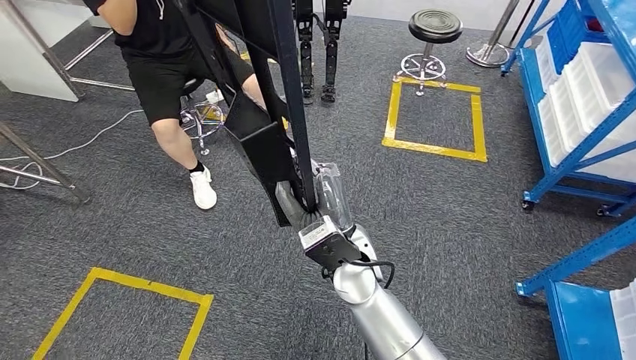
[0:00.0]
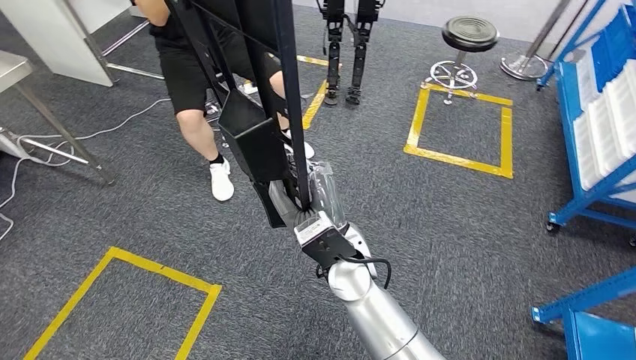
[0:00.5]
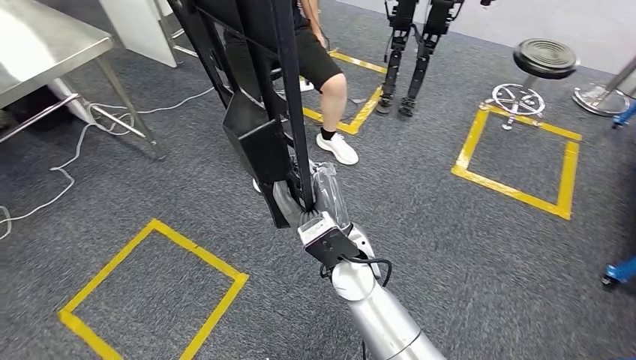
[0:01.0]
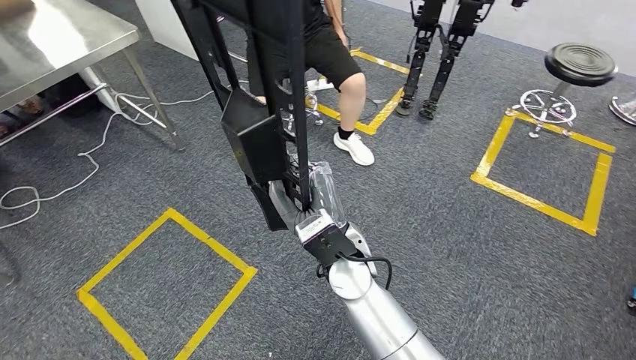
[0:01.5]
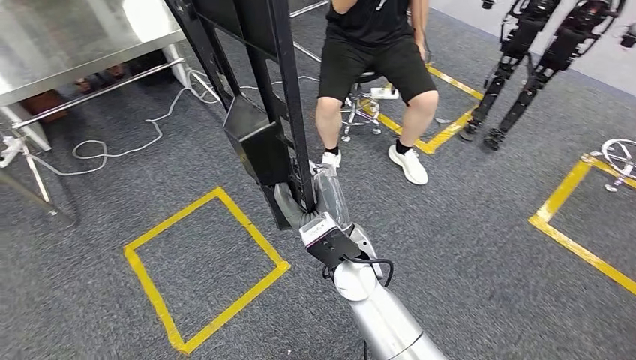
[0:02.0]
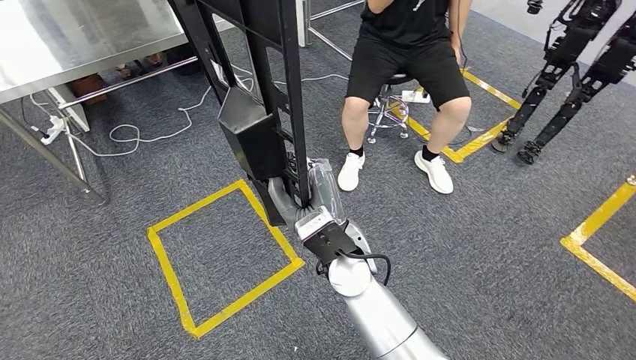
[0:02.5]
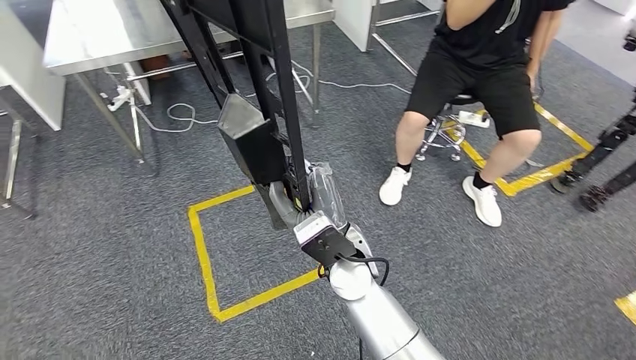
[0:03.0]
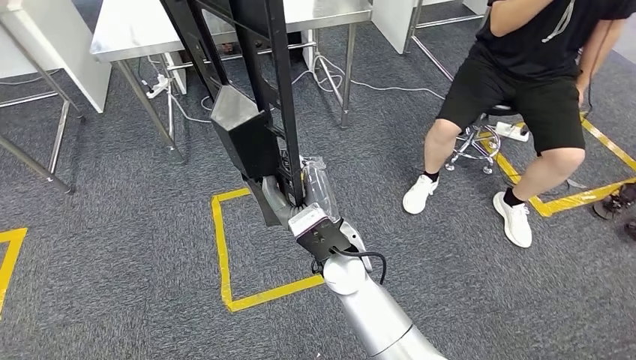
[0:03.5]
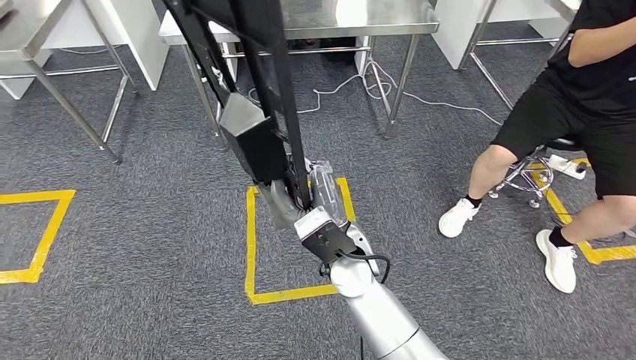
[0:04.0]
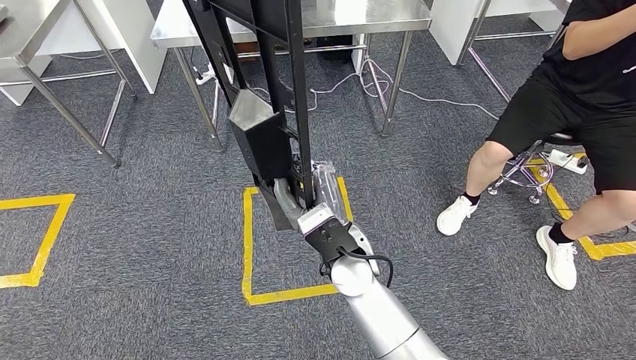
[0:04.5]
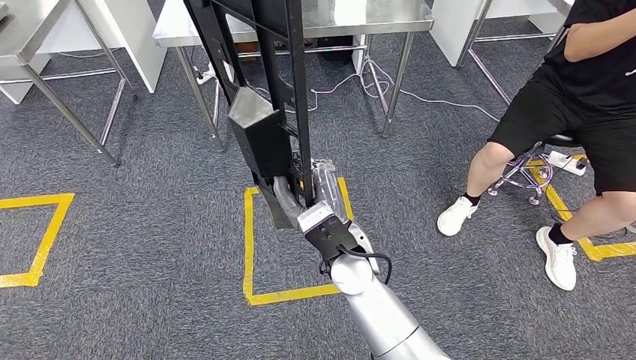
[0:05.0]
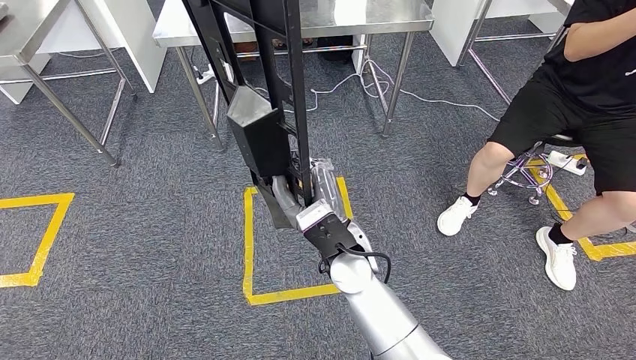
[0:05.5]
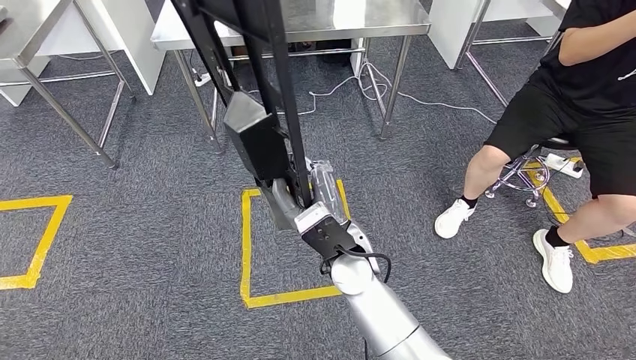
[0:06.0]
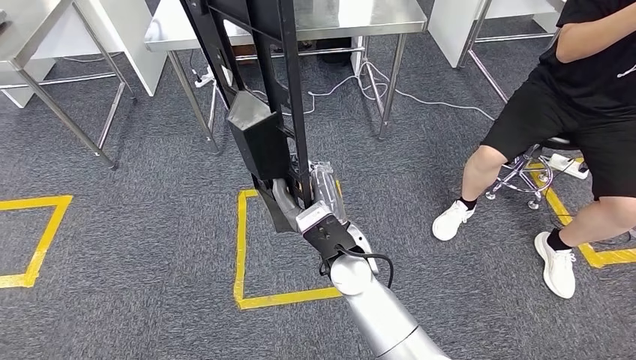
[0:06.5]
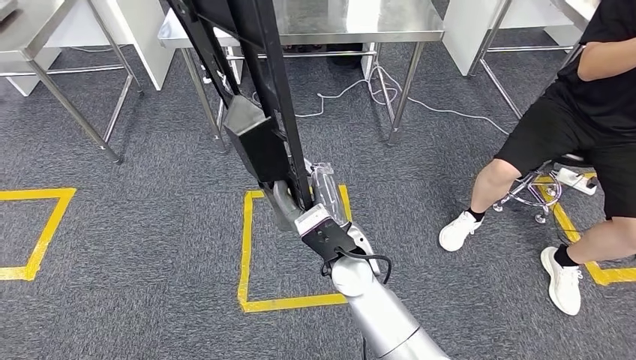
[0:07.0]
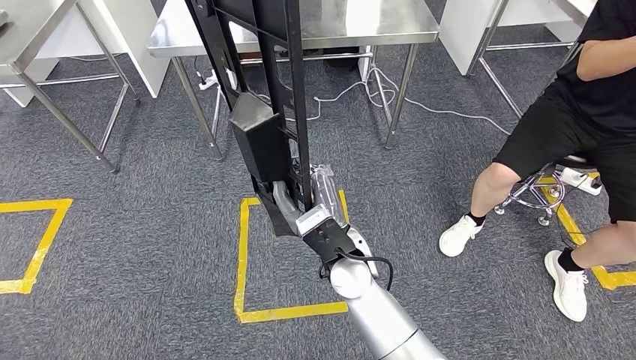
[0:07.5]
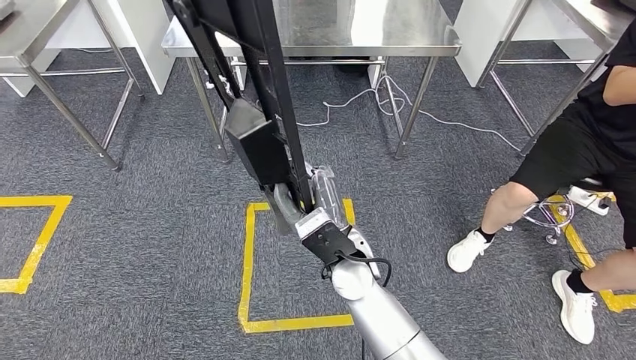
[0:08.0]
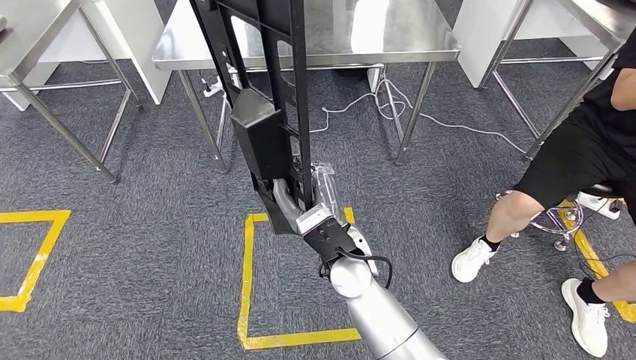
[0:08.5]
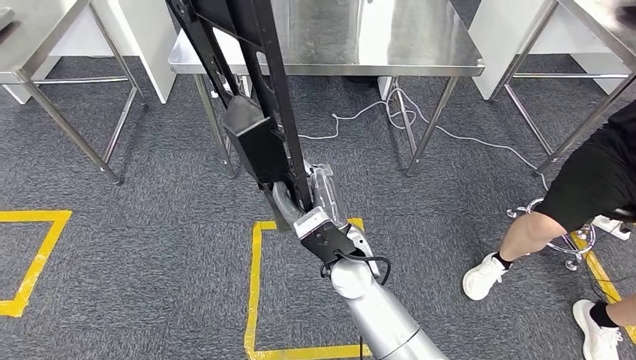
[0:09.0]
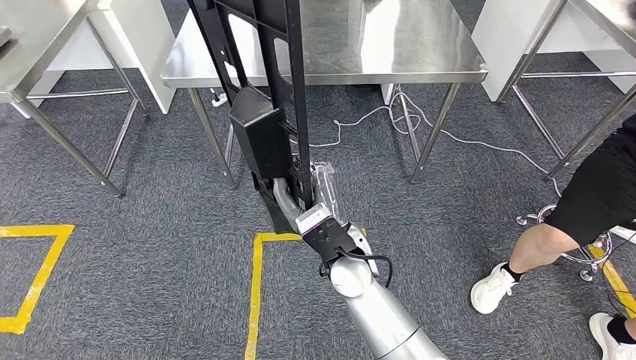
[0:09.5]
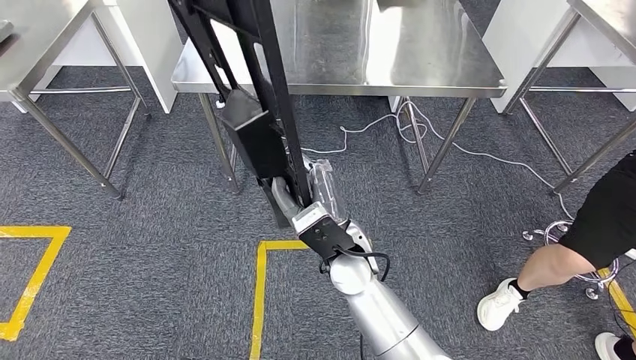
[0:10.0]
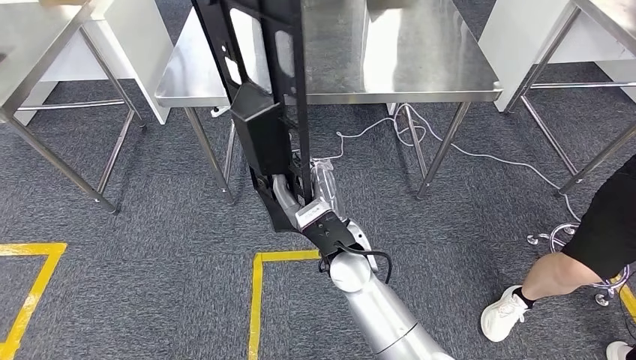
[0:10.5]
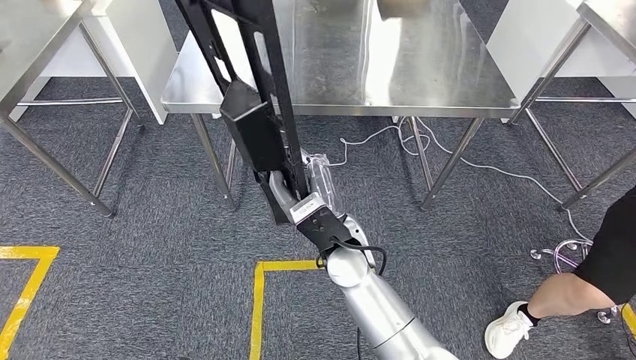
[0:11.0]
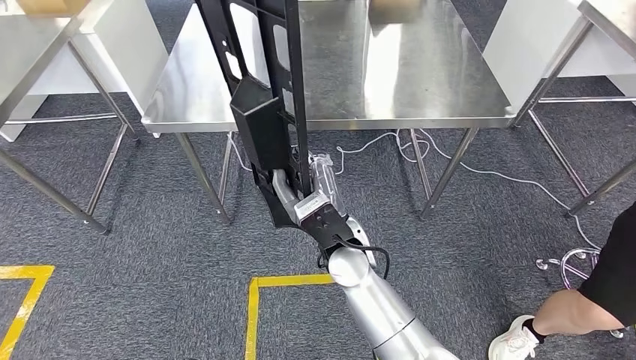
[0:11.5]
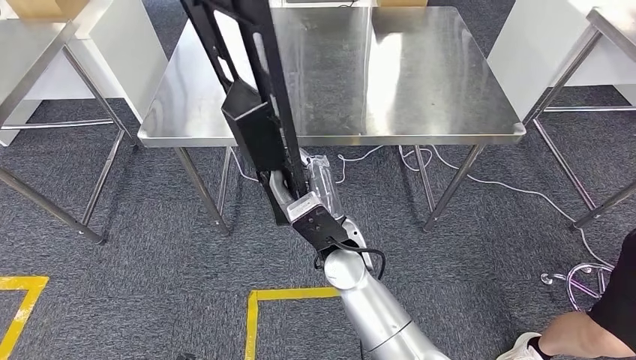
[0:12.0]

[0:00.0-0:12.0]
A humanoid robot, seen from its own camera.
0:04.0 to 0:06.0: Neither hand changes place.

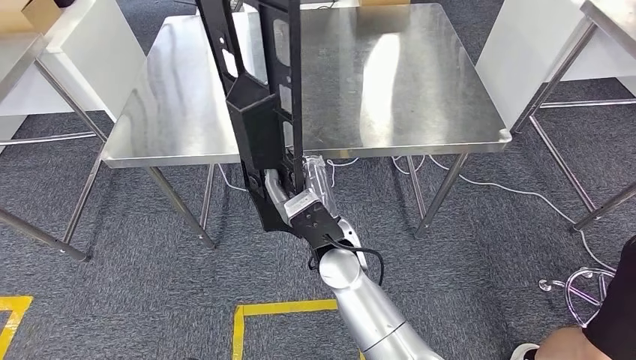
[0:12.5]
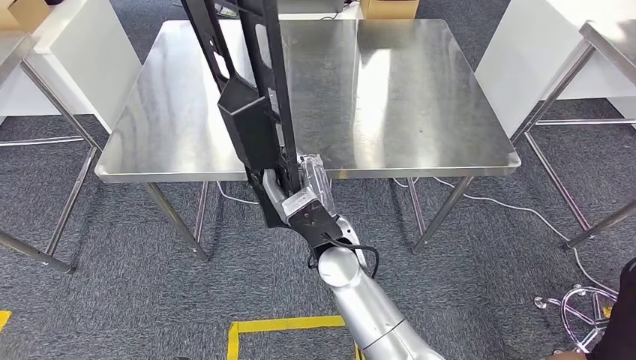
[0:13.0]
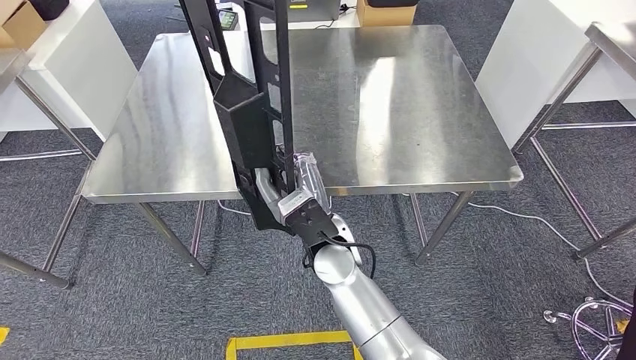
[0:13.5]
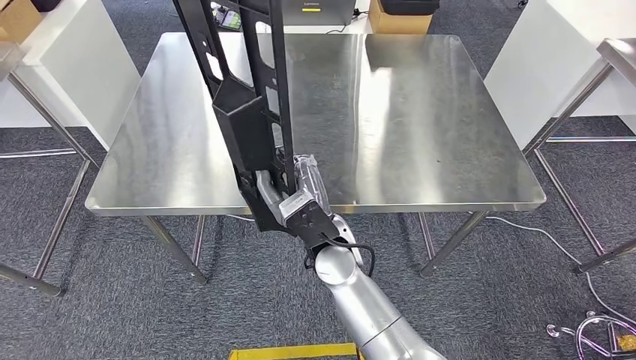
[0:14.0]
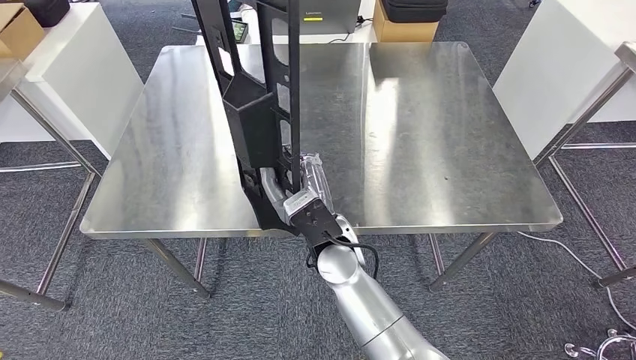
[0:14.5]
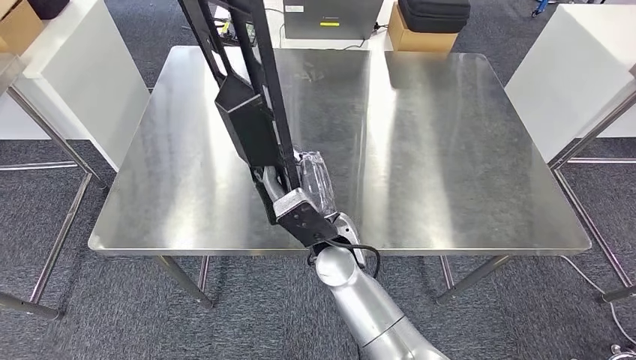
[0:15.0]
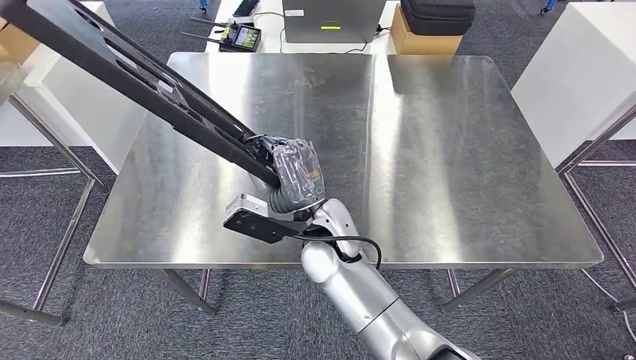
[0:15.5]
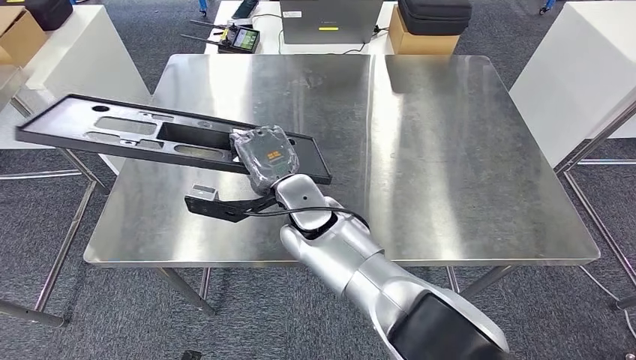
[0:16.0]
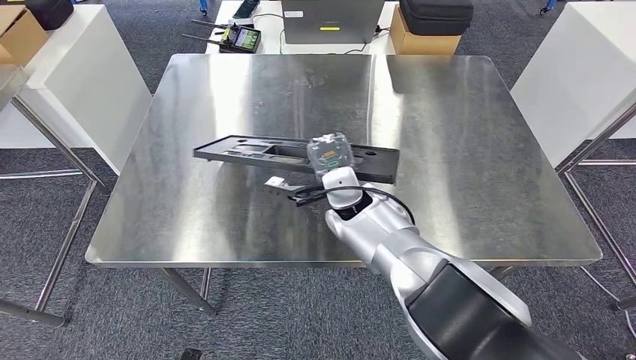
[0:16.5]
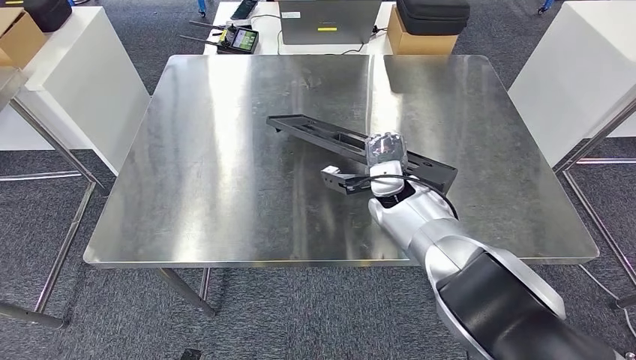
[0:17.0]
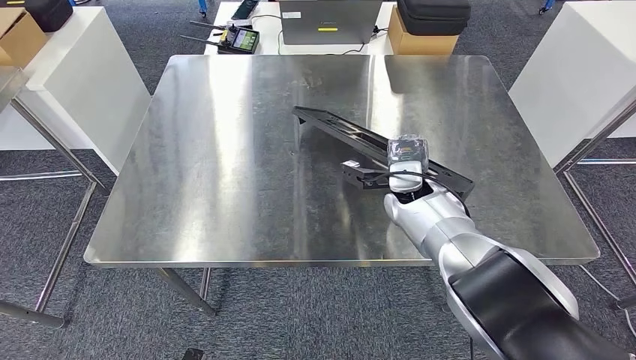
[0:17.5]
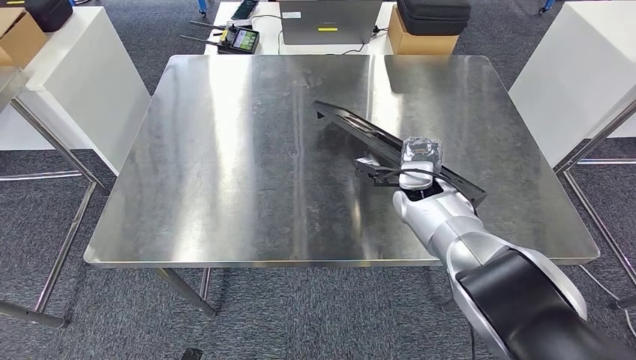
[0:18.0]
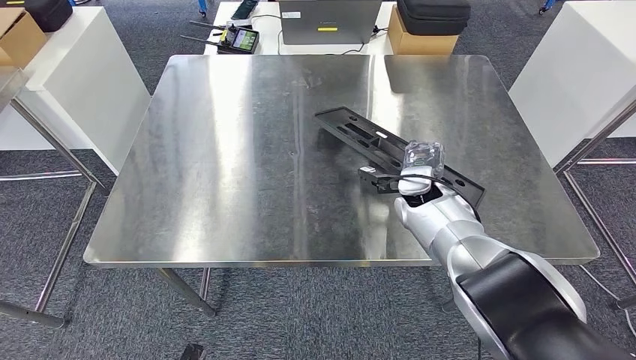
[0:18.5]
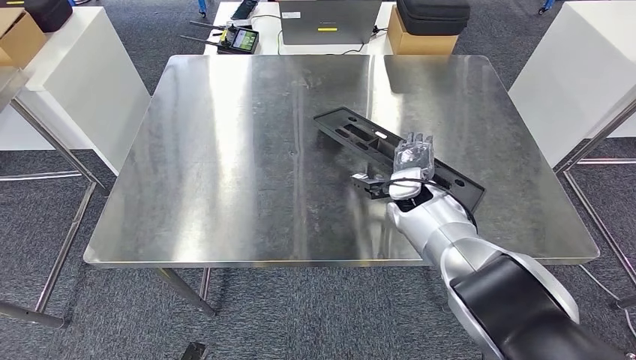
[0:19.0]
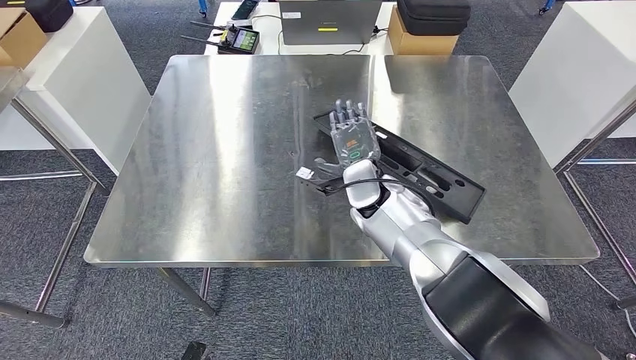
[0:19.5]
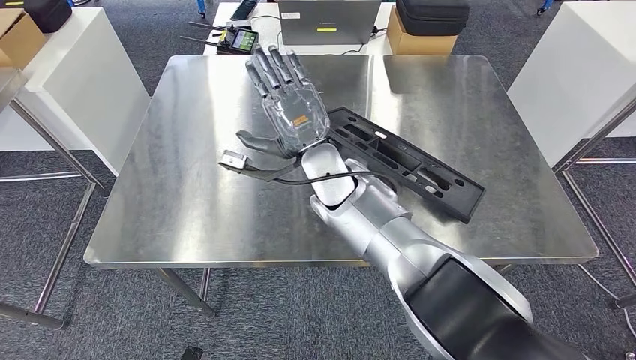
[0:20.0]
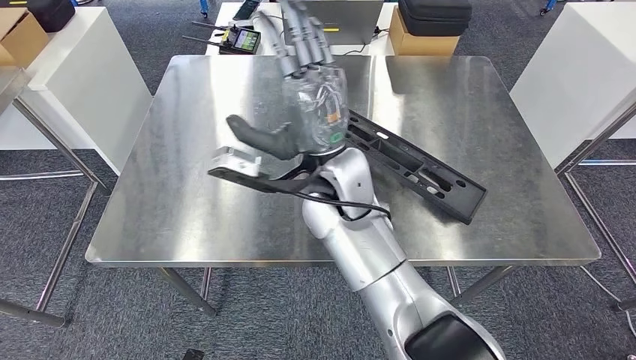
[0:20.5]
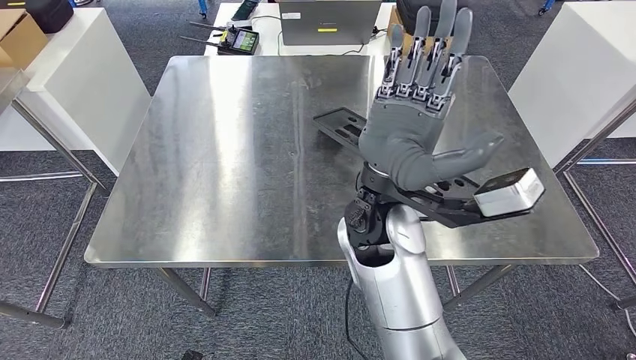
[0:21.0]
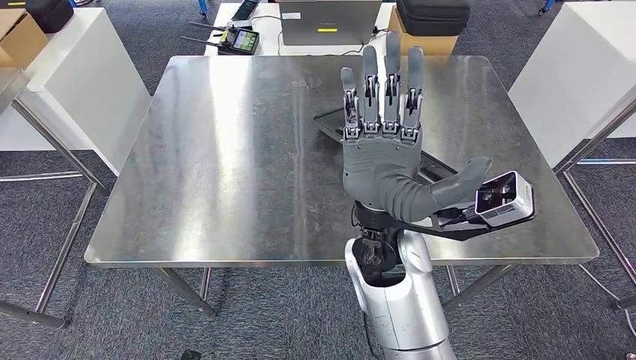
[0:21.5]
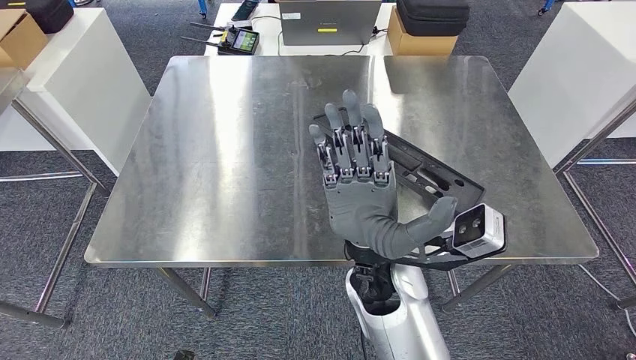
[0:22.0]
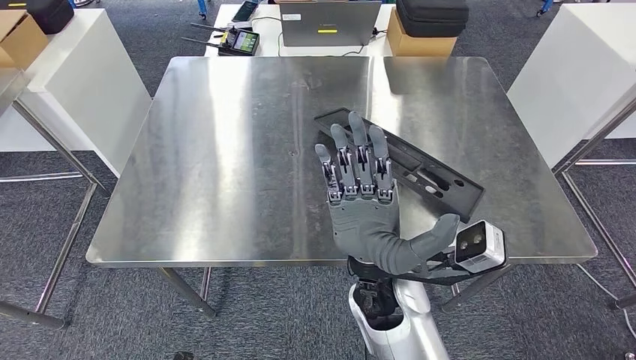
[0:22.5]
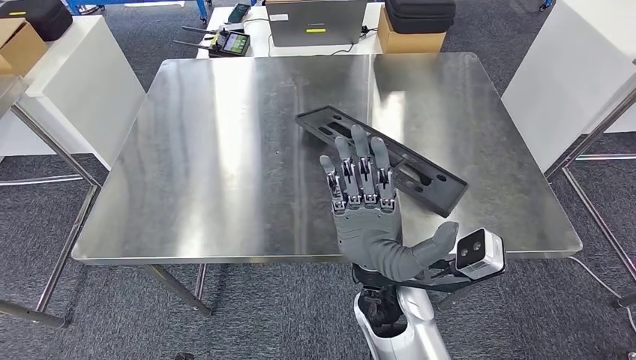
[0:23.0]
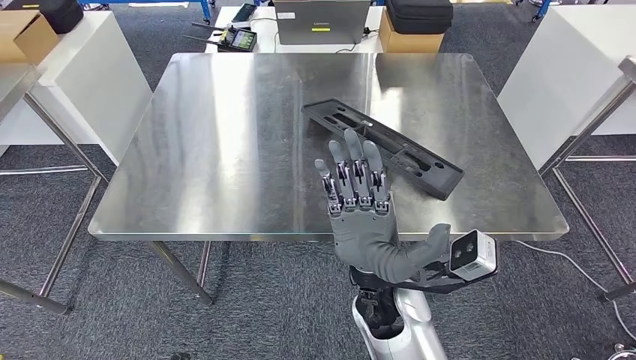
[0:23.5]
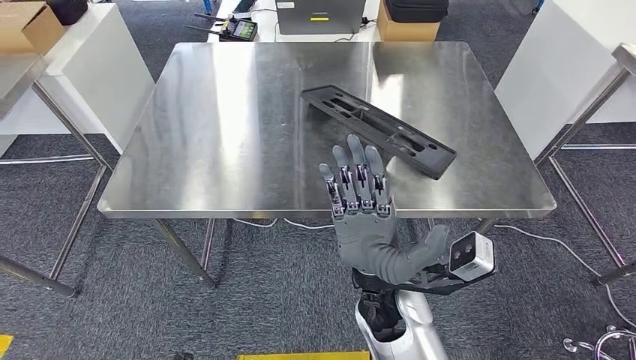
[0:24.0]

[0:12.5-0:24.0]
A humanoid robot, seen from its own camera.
0:18.5 to 0:20.0: The right hand travels to the left and upward by approximately 20 cm.
0:20.0 to 0:22.0: The right hand is displaced backward by approximately 15 cm.
